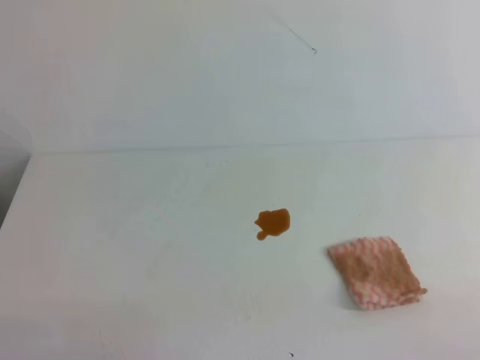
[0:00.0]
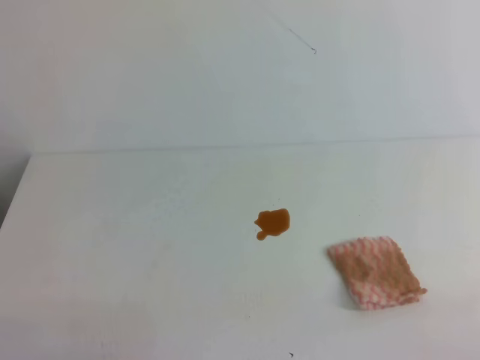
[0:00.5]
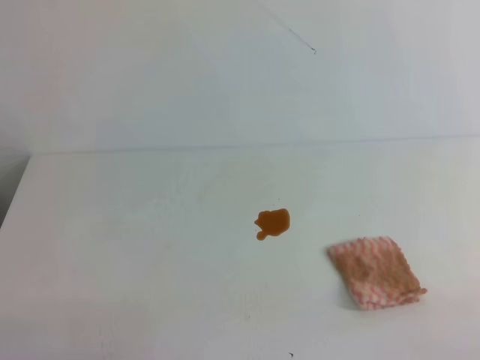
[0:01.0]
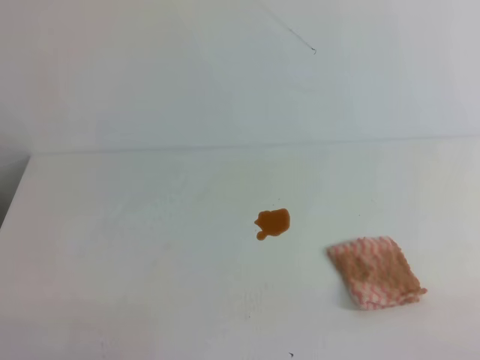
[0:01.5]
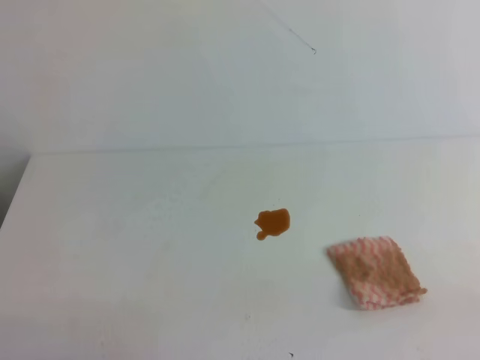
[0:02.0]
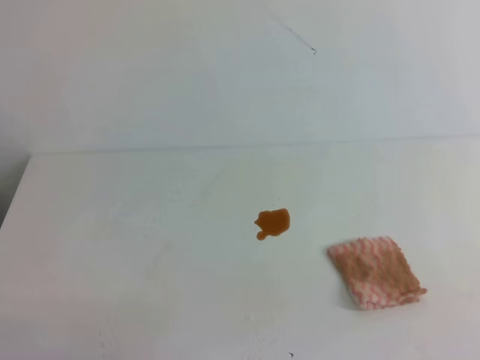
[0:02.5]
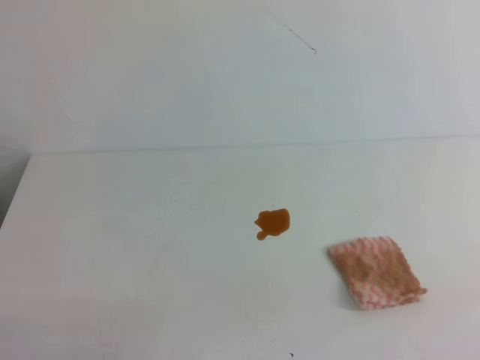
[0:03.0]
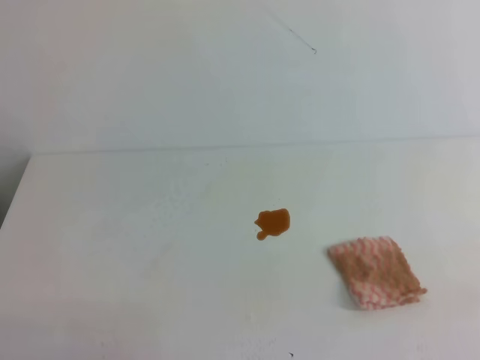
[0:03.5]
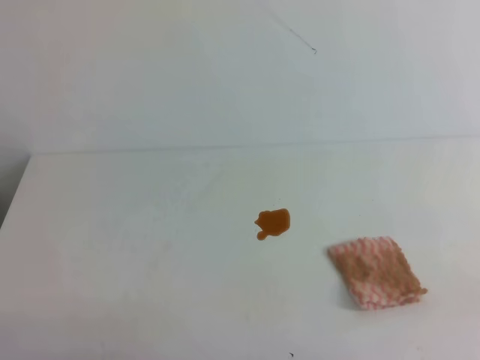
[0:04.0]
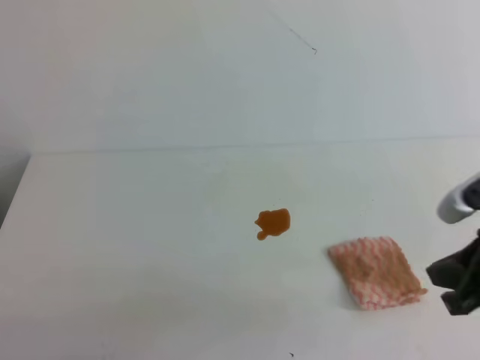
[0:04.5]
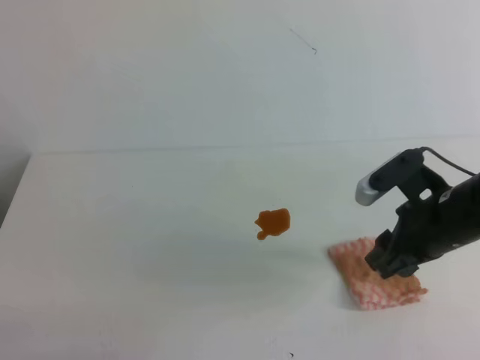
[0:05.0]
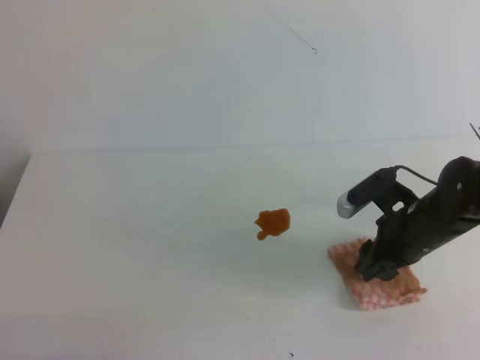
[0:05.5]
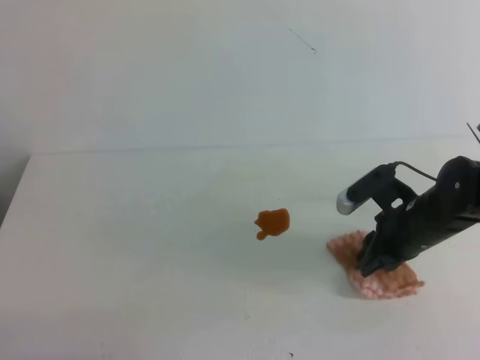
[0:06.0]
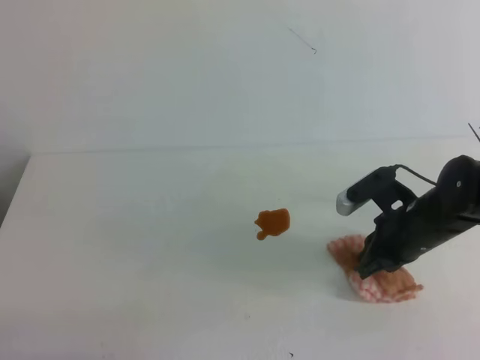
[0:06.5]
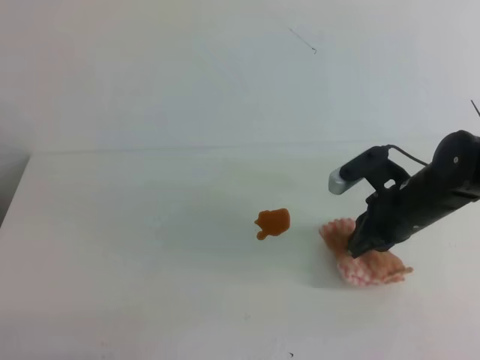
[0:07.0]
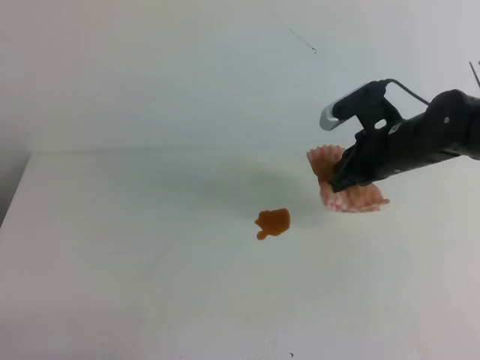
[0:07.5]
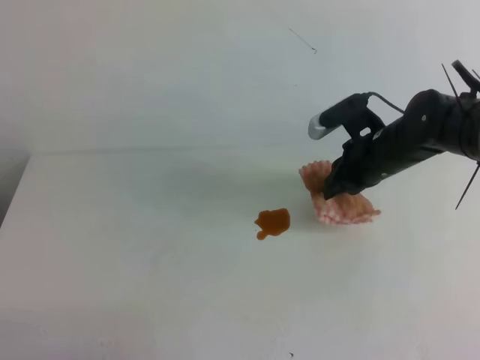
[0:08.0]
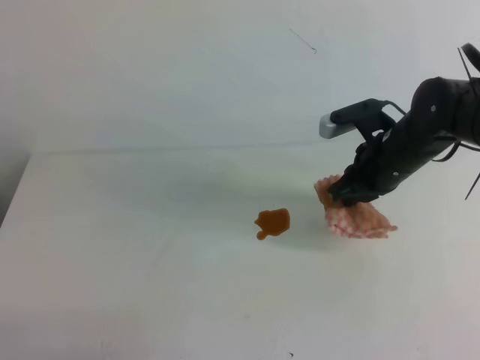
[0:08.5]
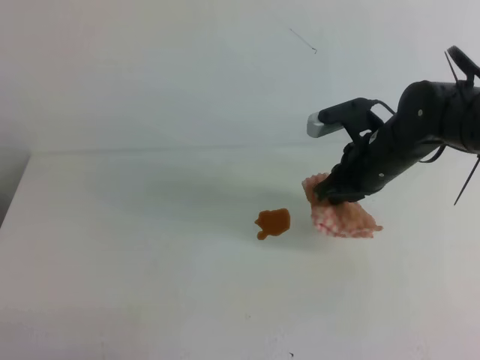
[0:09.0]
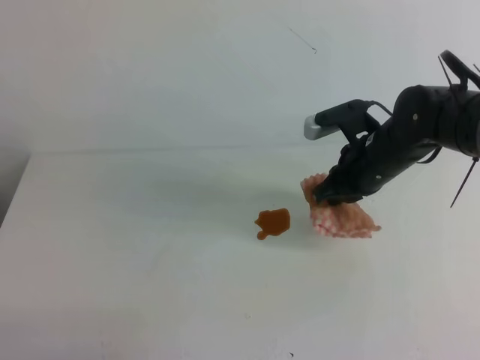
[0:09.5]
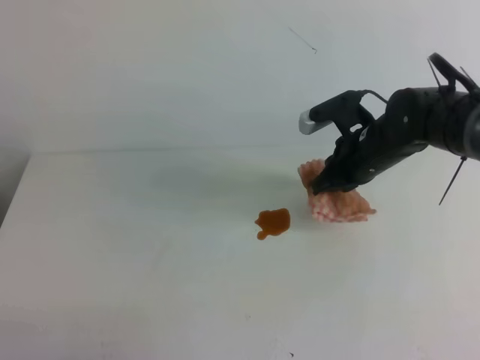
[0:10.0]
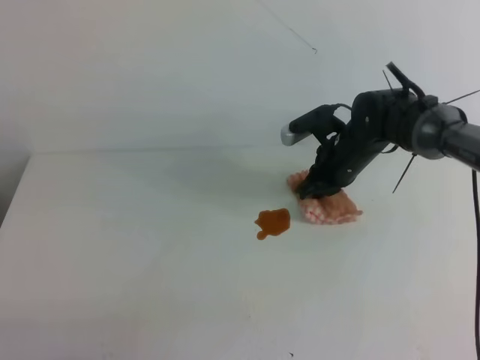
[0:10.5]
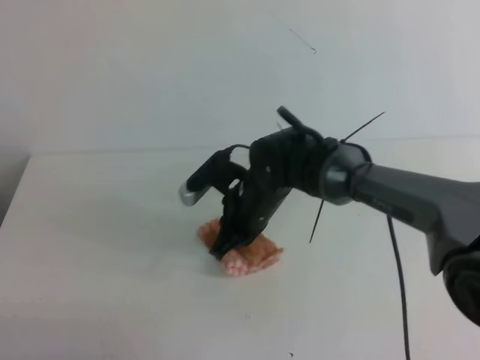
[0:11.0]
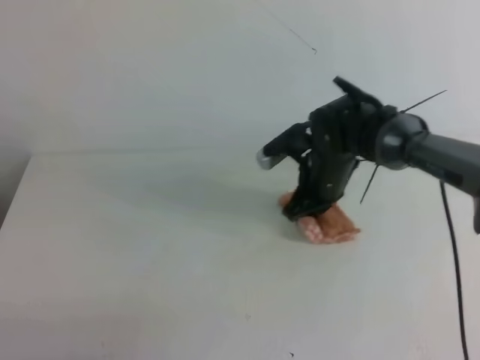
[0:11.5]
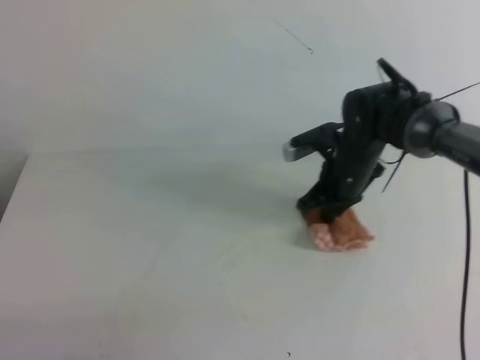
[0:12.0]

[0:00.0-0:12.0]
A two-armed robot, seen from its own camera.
0:04.0 to 0:06.0: The right gripper moves forward, downward and to the left, some 30 cm, and opens, then closes once more; the left gripper opens up.
0:06.0 to 0:08.0: The left gripper closes. Meanwhile the right gripper heads forward and upward, covering roughly 10 cm.
0:08.0 to 0:10.0: There are only small adjustments of the grippers.
0:10.0 to 0:12.0: The right gripper moves downward, some 5 cm.

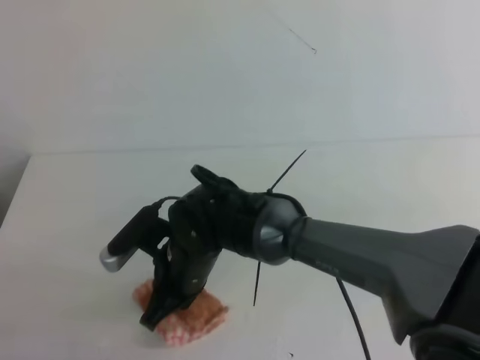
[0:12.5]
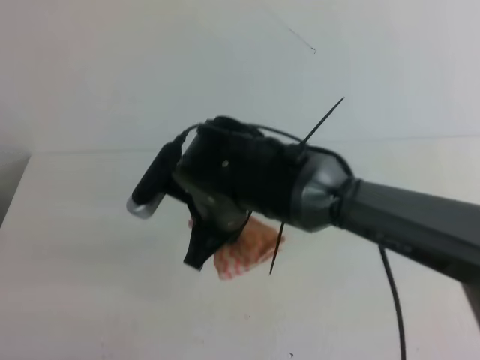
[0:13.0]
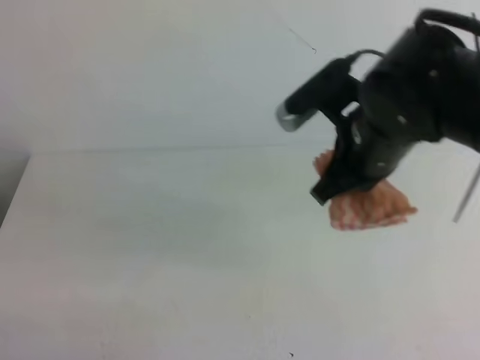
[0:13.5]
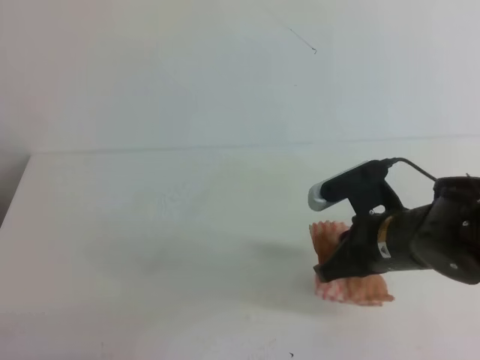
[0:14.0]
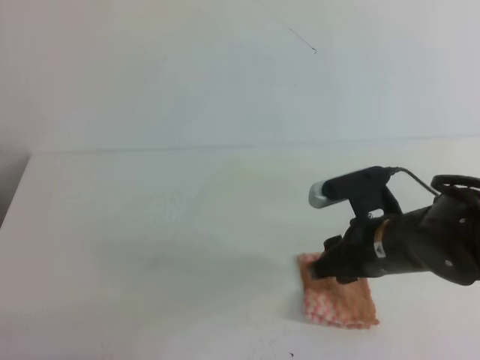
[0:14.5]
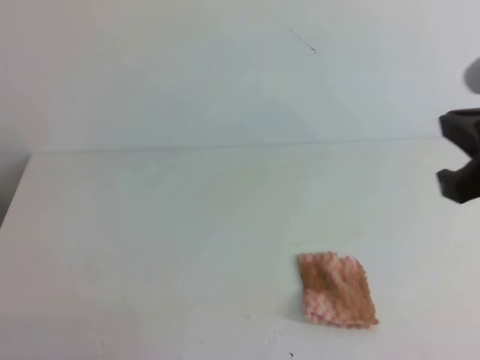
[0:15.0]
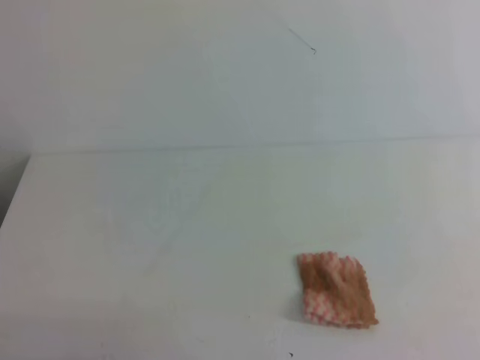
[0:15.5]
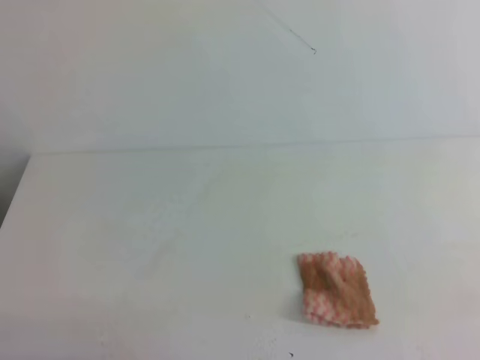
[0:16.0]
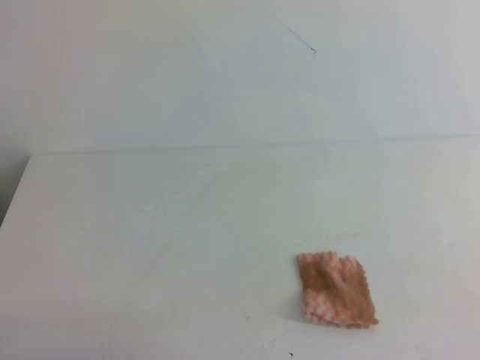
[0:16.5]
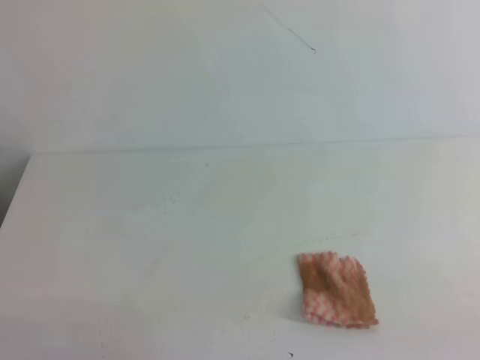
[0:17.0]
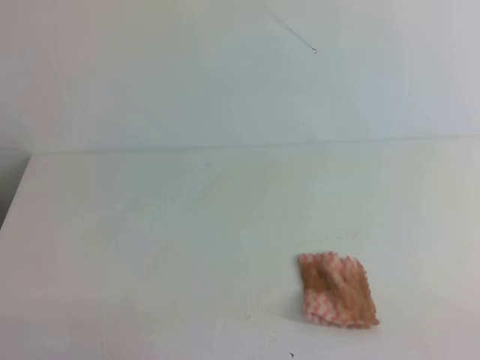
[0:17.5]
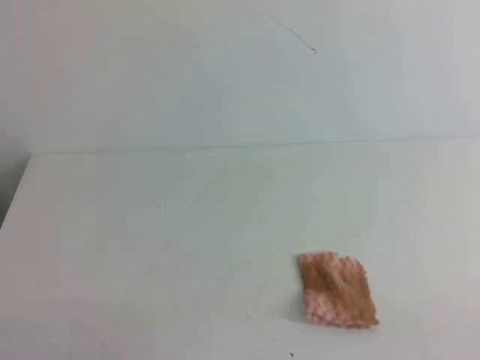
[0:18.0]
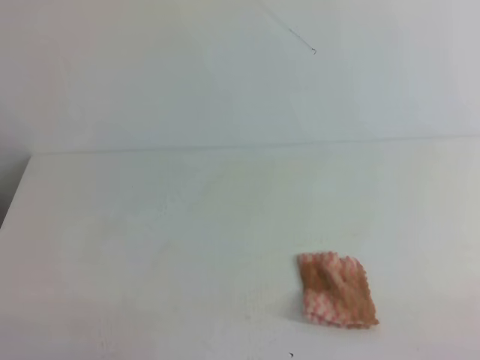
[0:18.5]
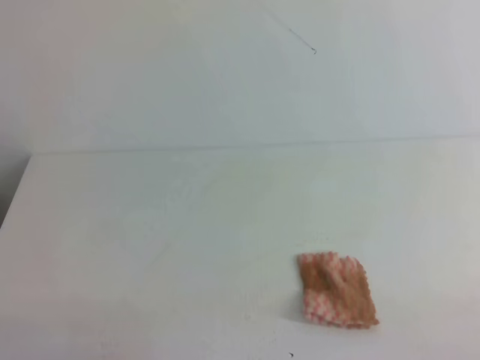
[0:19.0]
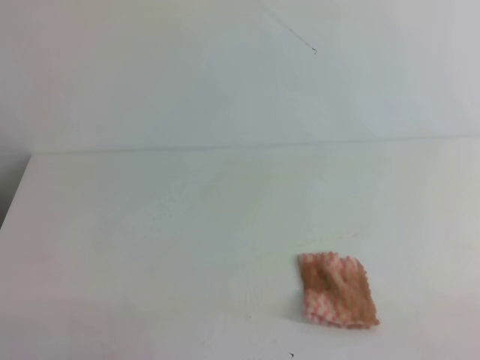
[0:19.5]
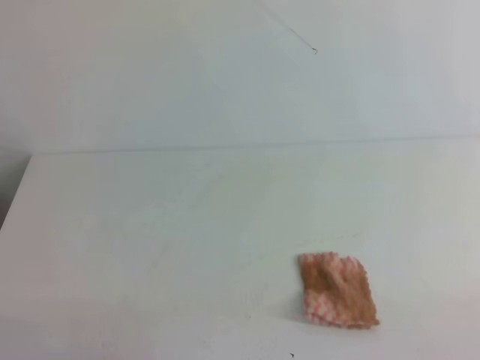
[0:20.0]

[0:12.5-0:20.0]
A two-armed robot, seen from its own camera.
0:12.5 to 0:14.5: The right gripper moves to the right, roughly 20 cm, and opens up.
0:14.5 to 0:16.5: The right gripper travels backward and to the right by some 25 cm, and closes its fingers.

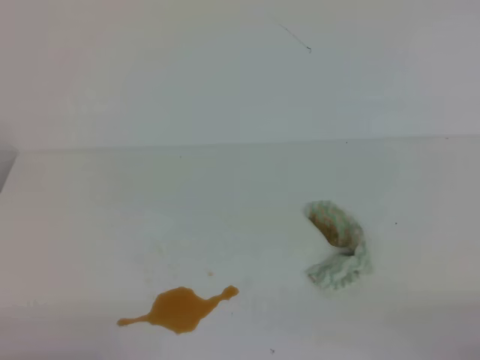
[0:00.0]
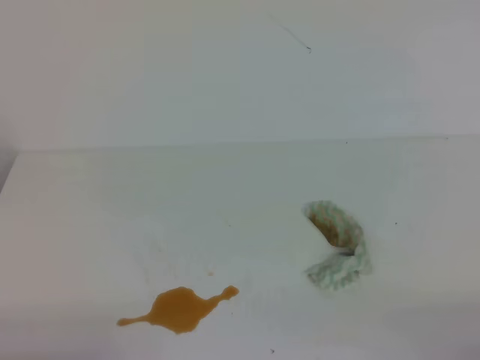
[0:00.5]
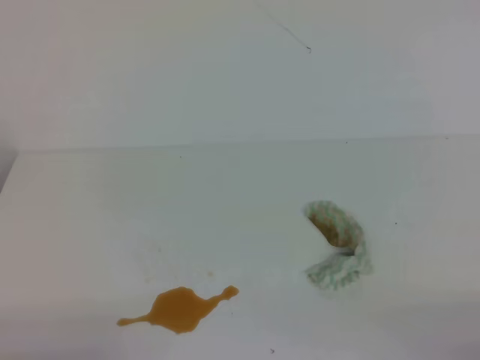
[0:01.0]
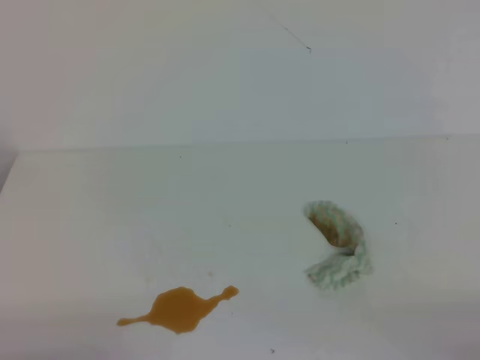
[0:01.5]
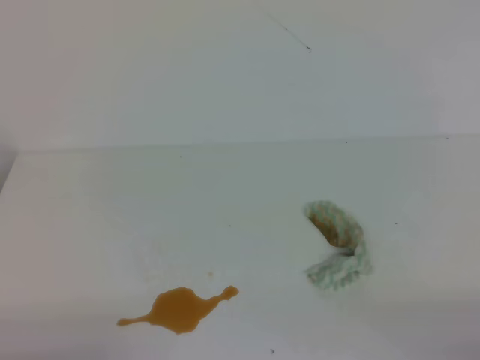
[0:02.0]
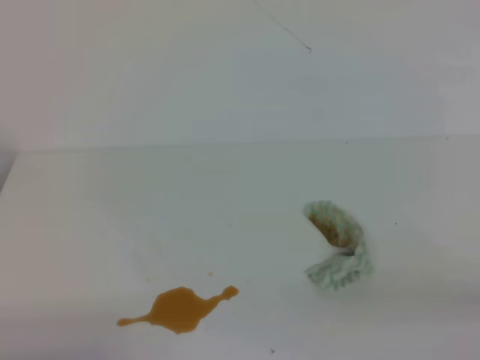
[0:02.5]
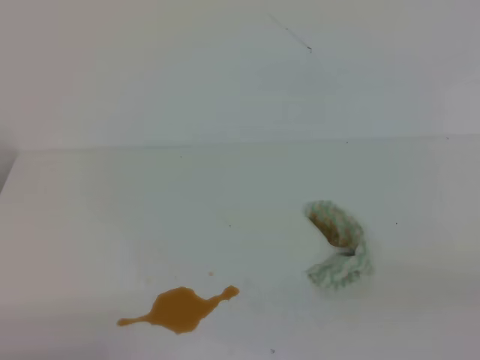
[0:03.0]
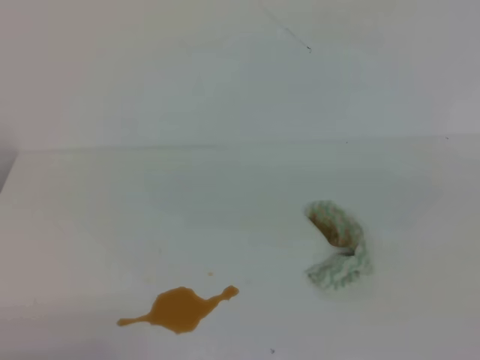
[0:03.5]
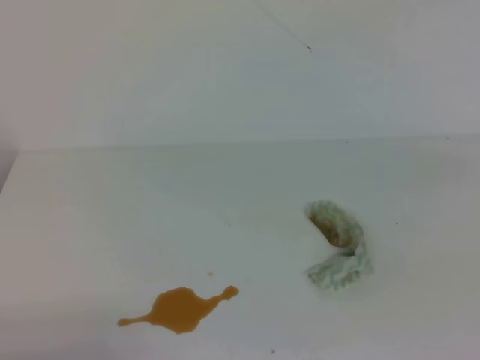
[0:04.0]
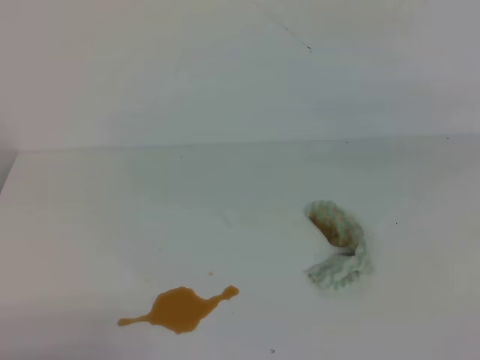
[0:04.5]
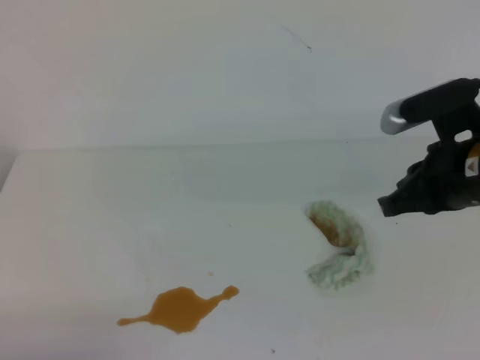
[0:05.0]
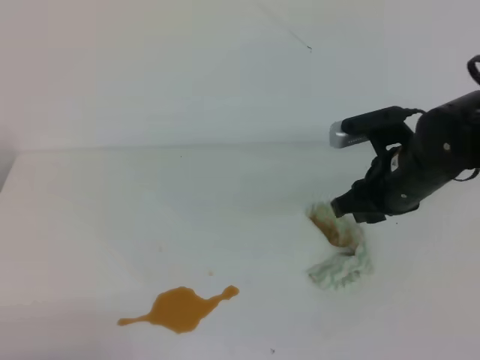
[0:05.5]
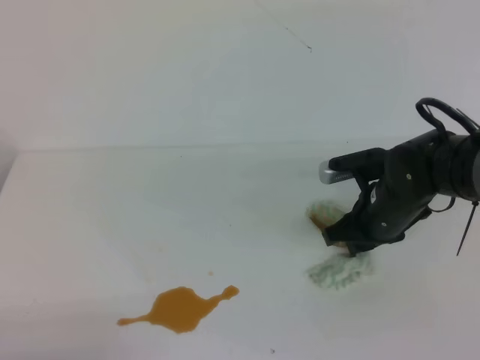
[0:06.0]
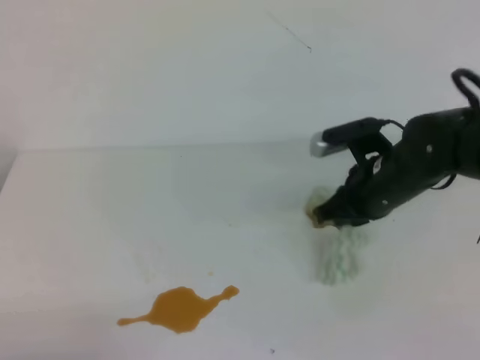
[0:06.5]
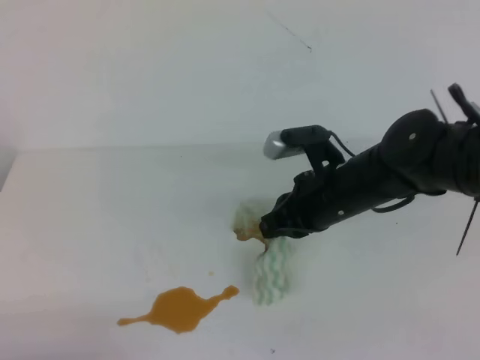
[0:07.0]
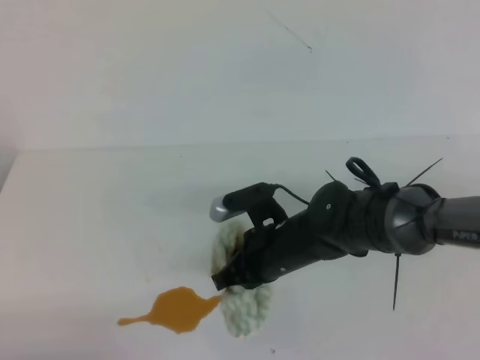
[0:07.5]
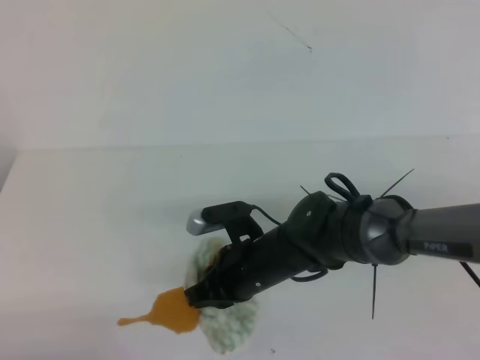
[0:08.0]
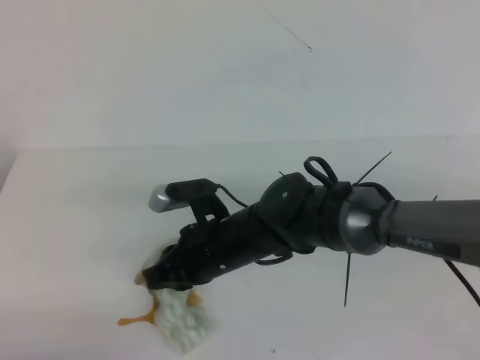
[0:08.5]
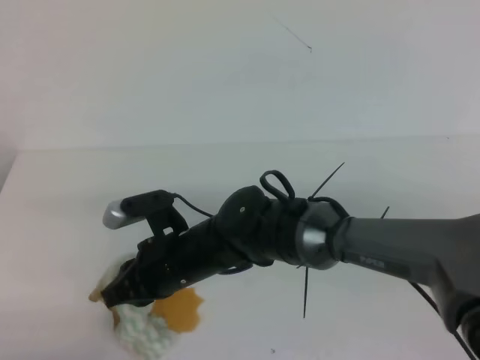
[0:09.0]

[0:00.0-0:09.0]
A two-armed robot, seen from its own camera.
0:00.0 to 0:02.0: The two grippers keep their place.
0:04.5 to 0:07.0: The right gripper goes about 25 cm to the left, downward and forward, and opens, then closes again.
0:07.0 to 0:09.0: The right gripper heads to the left, covering approximately 15 cm.
